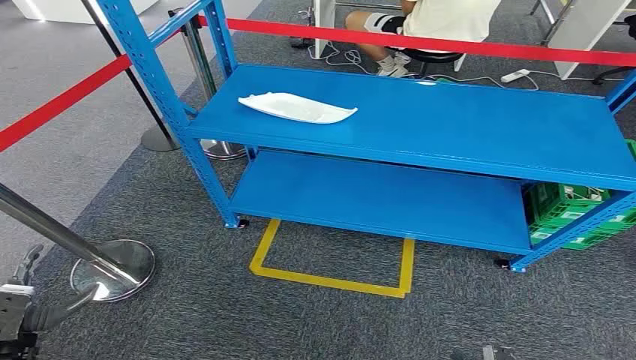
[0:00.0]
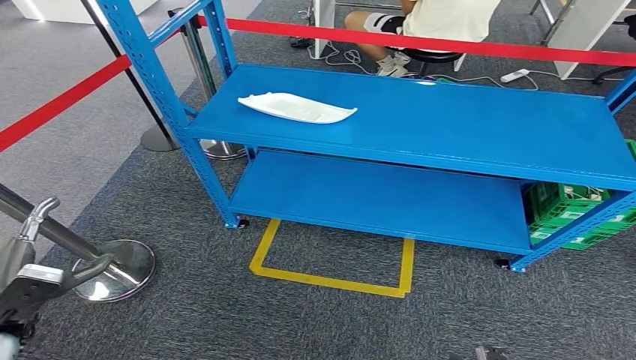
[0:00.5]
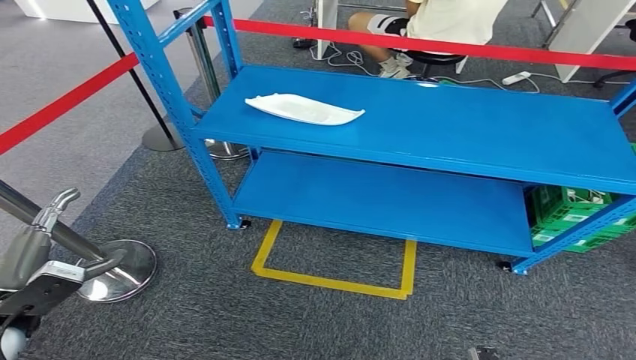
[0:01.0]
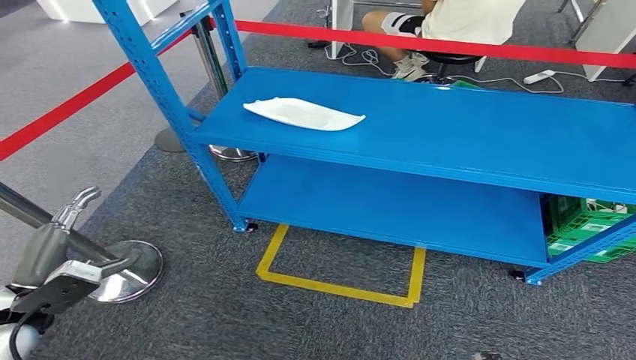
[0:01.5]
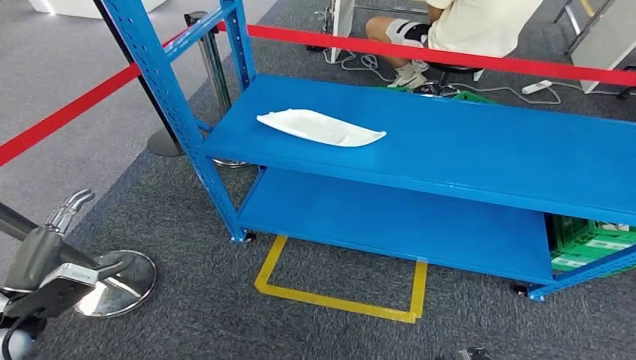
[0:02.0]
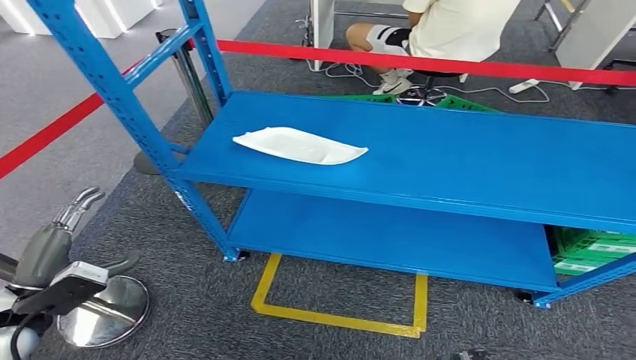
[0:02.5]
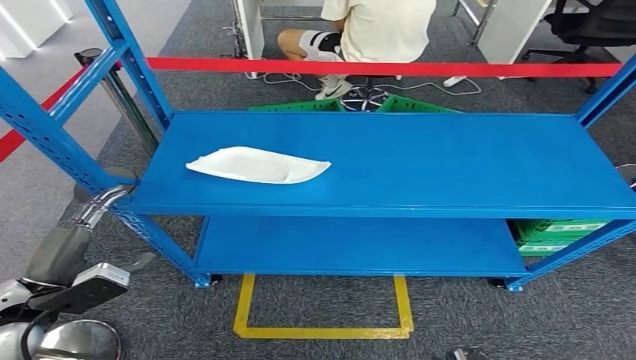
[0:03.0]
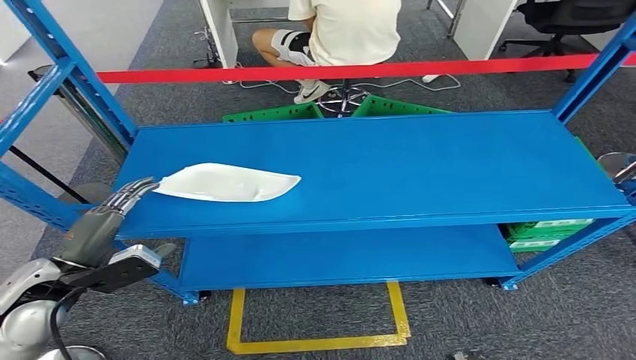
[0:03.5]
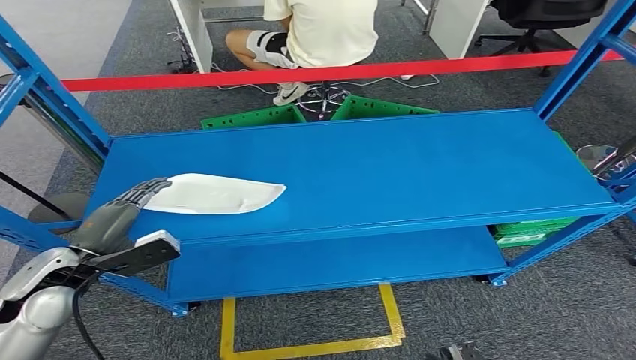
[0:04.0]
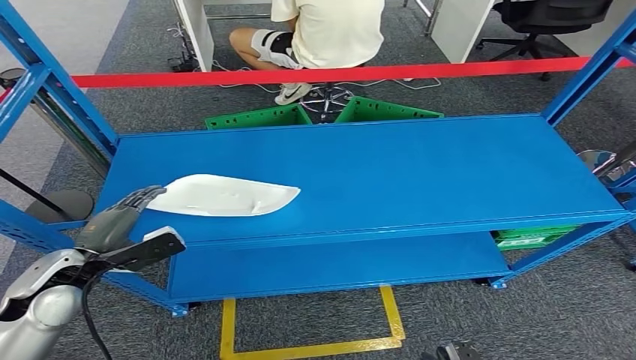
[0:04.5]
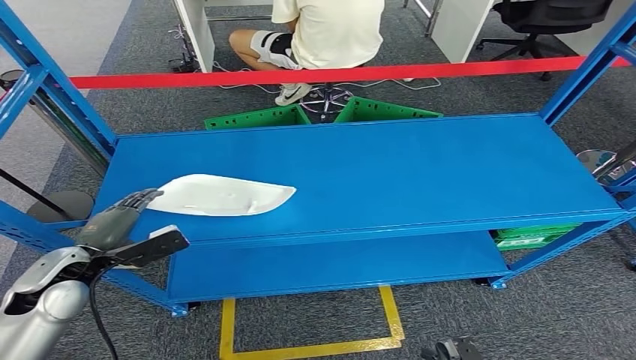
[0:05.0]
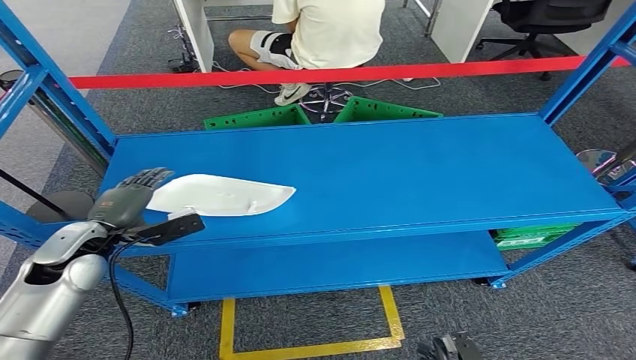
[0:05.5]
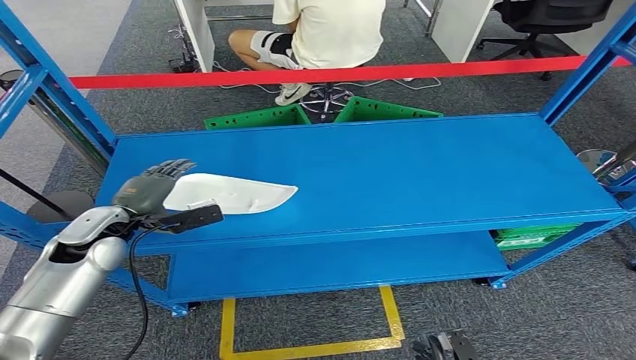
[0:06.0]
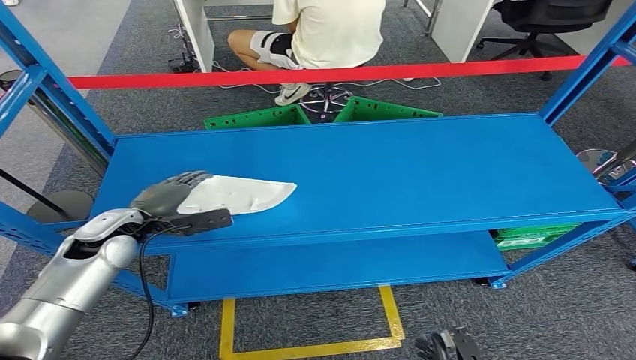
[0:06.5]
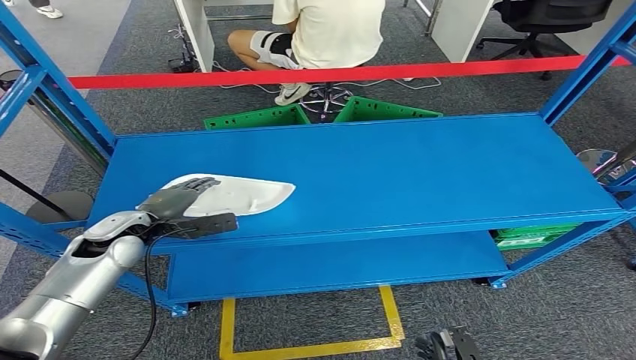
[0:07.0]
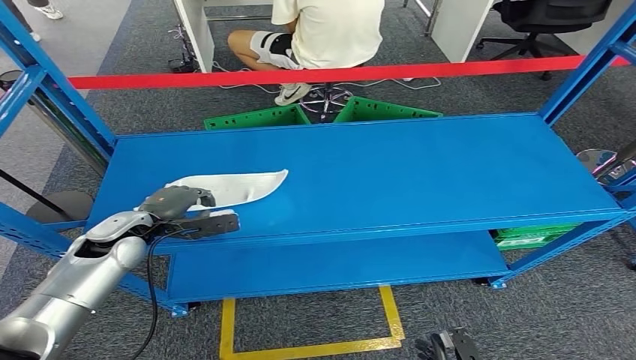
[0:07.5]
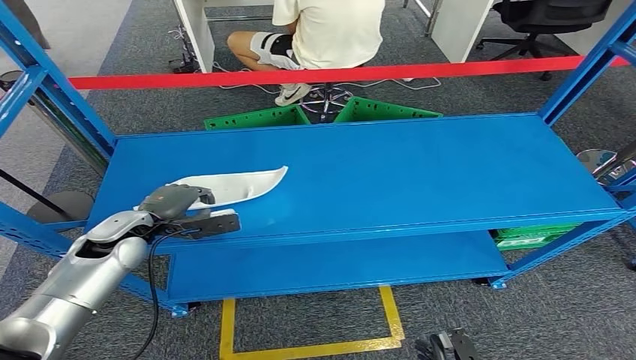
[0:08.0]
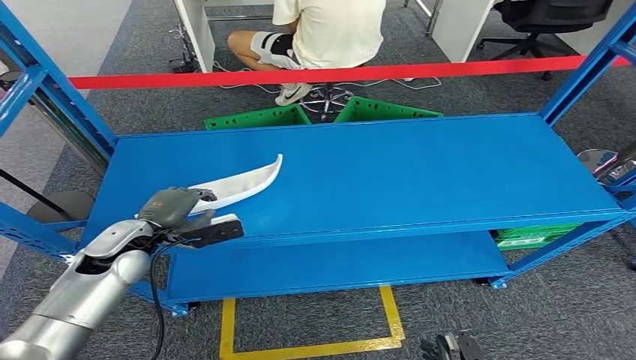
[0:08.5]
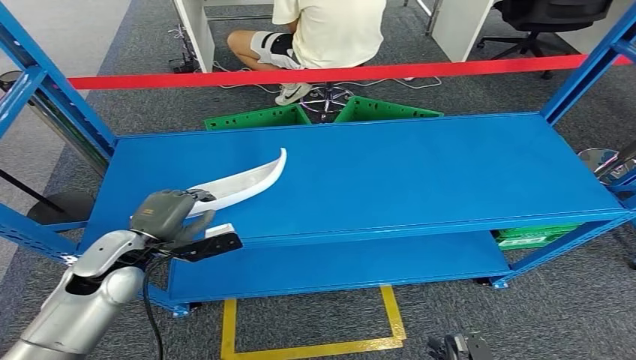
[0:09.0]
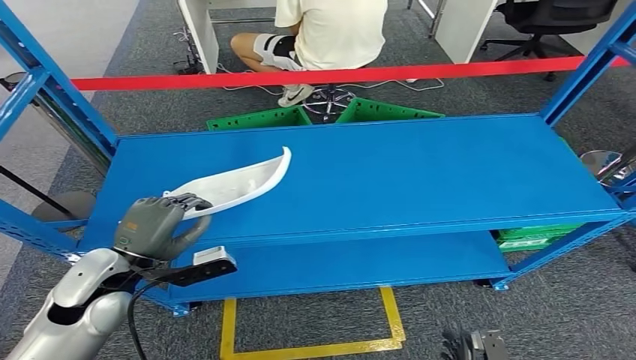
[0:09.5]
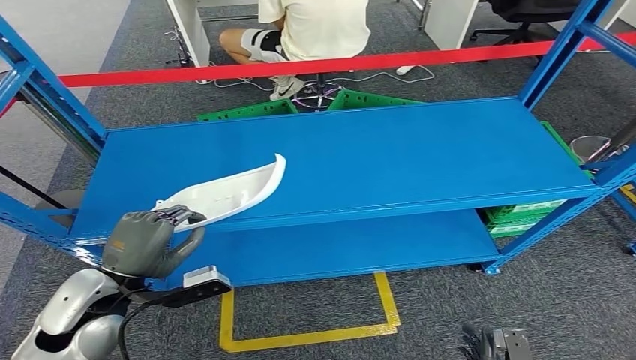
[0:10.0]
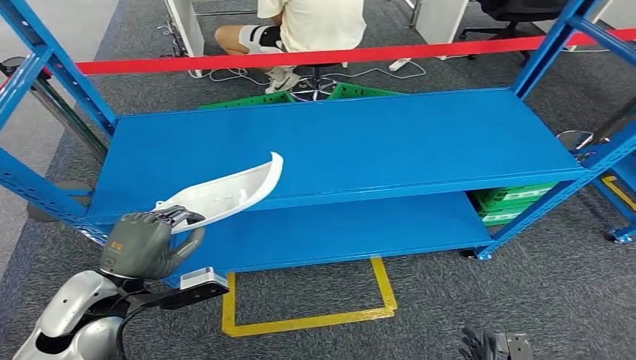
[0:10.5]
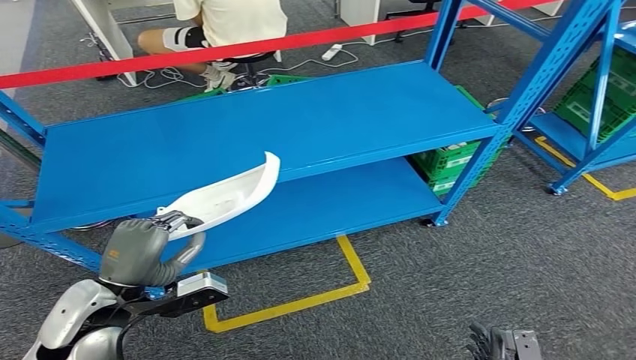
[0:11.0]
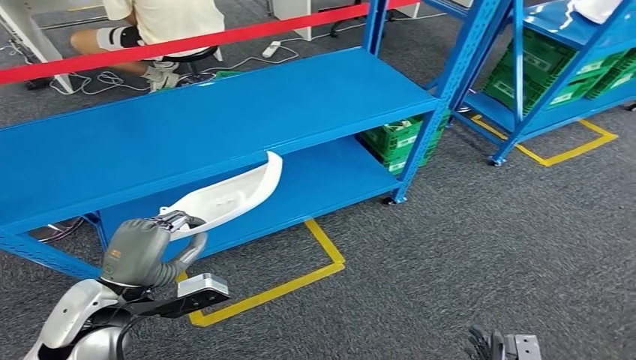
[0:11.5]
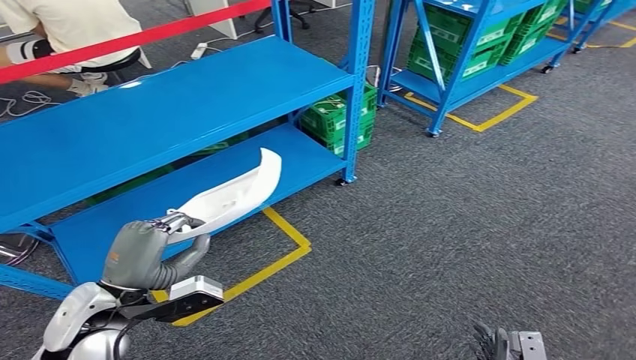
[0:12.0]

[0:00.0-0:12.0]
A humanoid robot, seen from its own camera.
Step, 0:00.0 to 0:10.0: Pick up the small component from the shelf.
0:04.0 to 0:06.0: The left hand travels forward by roughly 10 cm.
0:06.0 to 0:08.0: The hands move only a little.

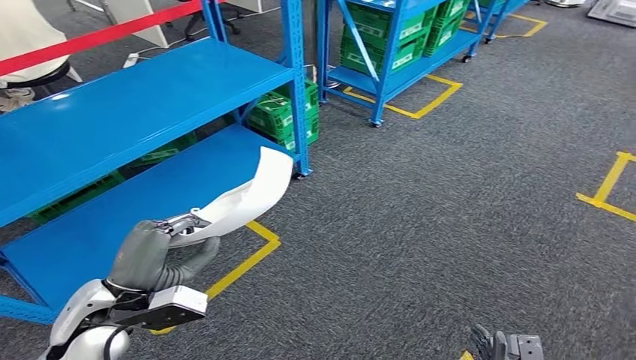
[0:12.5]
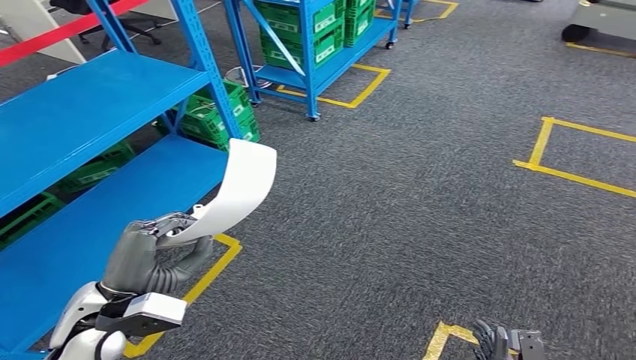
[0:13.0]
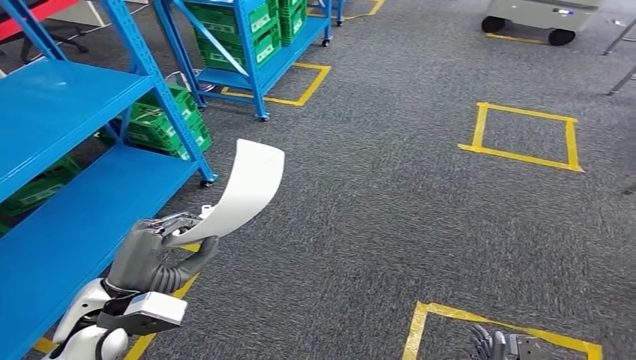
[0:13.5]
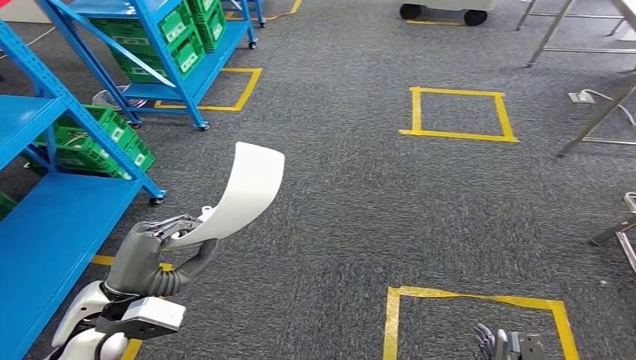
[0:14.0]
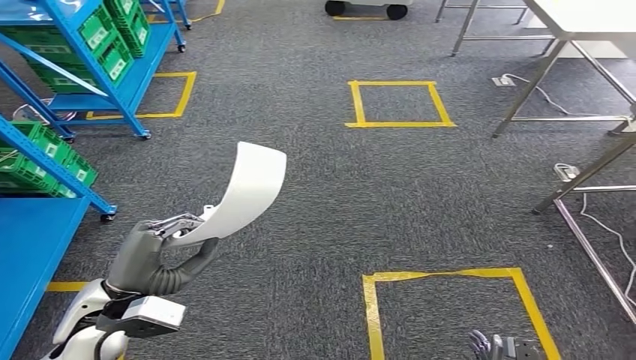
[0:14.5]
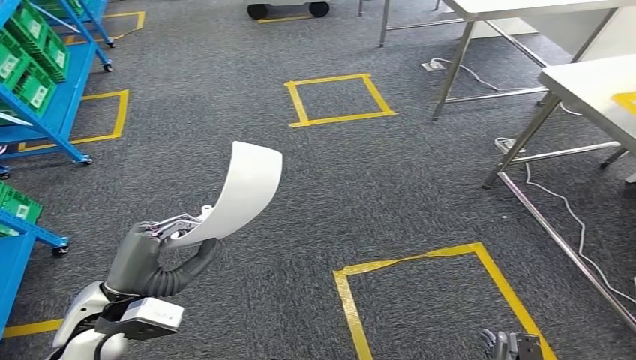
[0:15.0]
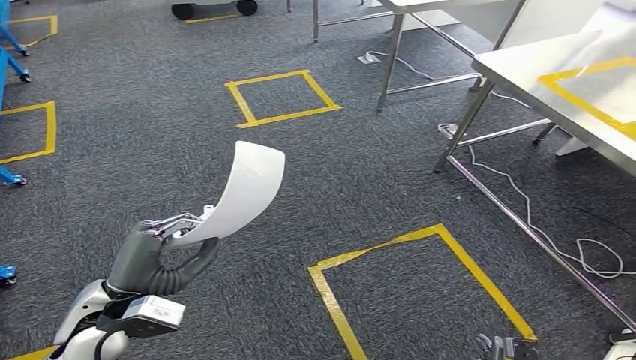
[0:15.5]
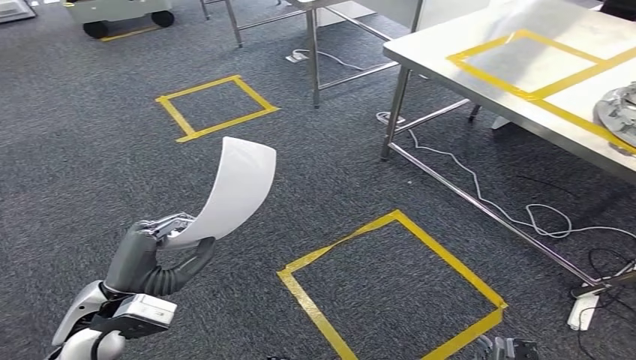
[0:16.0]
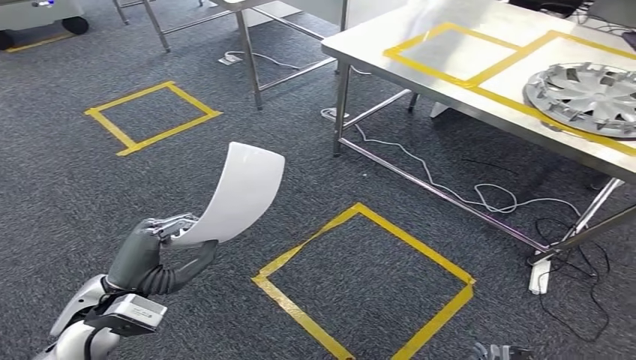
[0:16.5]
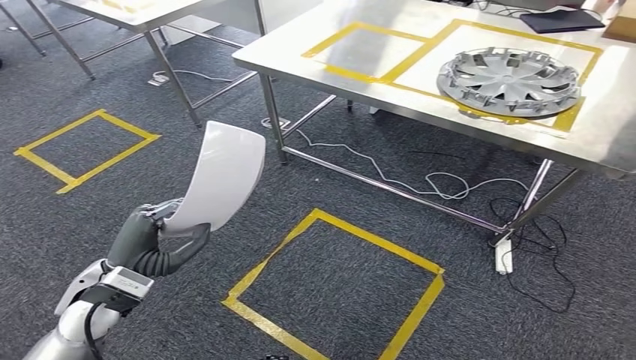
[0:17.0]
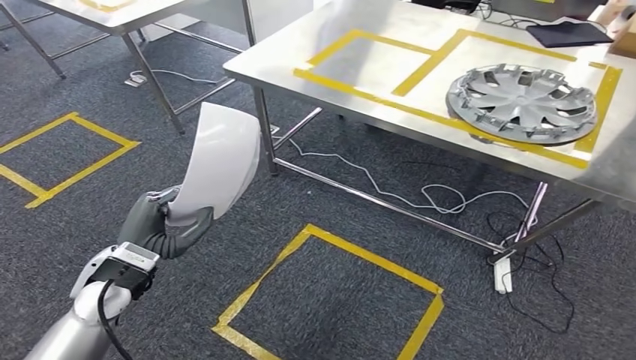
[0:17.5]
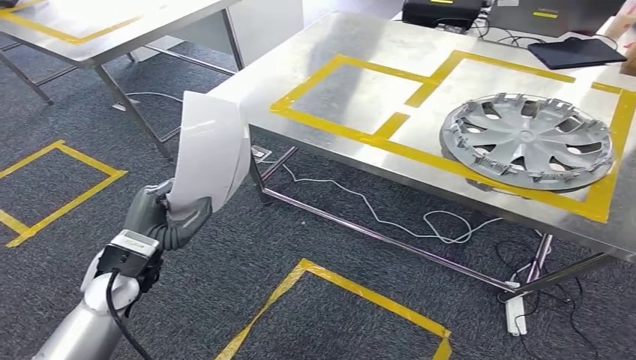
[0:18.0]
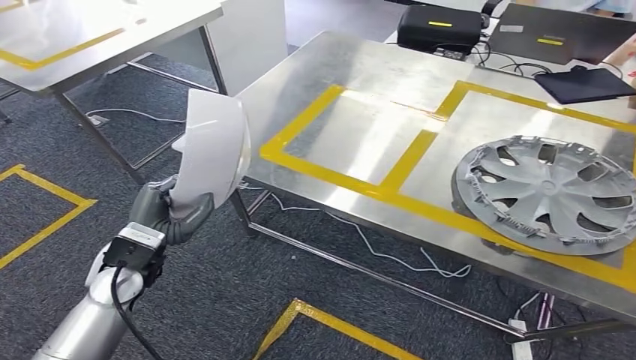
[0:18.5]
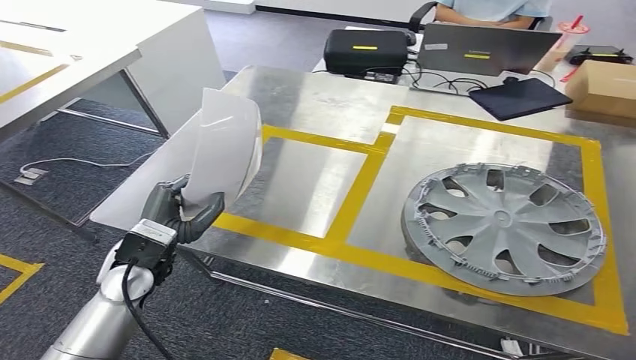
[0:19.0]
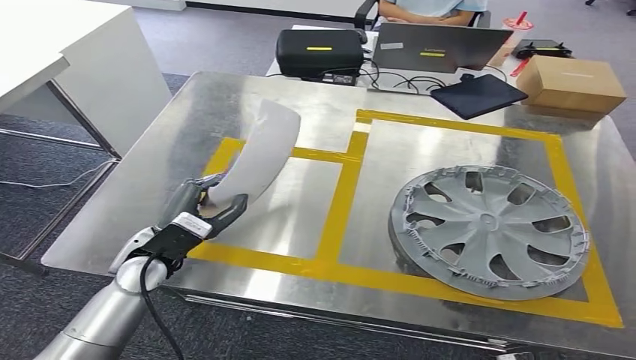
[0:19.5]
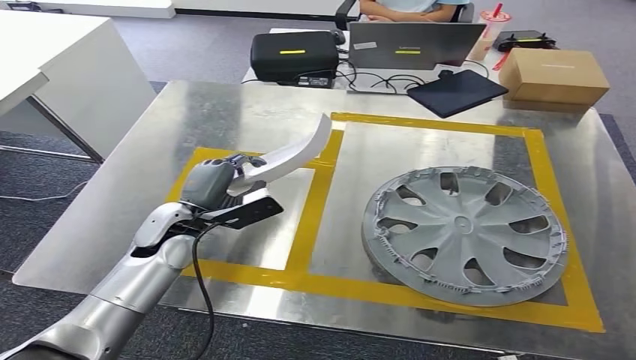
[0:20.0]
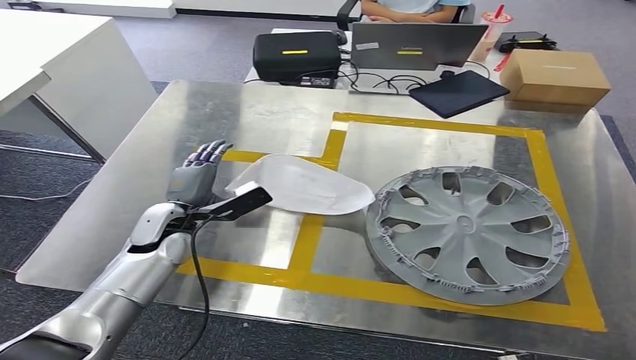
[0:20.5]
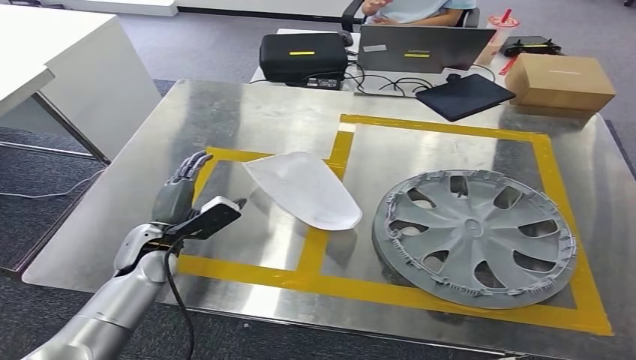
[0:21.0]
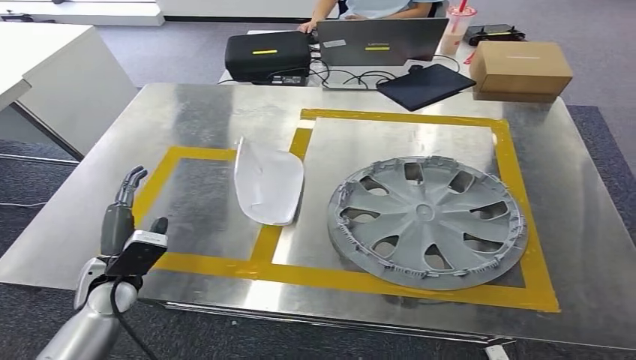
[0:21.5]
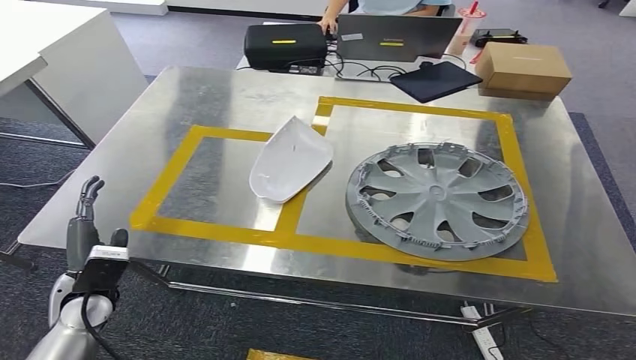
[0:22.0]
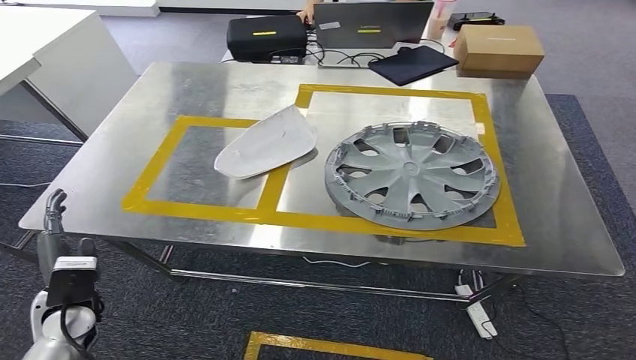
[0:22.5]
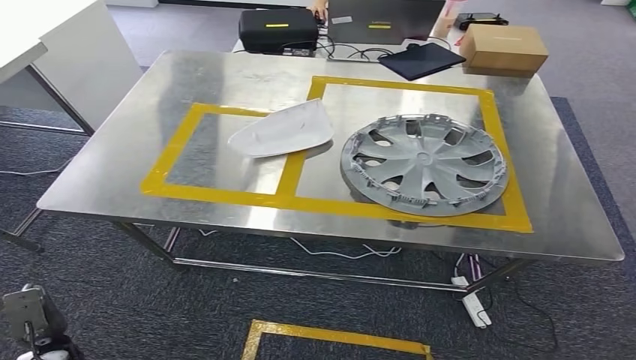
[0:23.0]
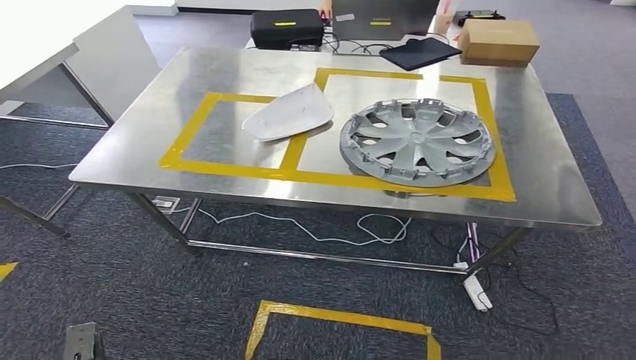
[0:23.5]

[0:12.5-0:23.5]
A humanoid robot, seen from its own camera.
Step, 0:12.5 to 0:19.0: Move the small component to the workbench.
Step, 0:19.5 to 0:21.5: Insert the small component into the corresponding slot on the workbench.
